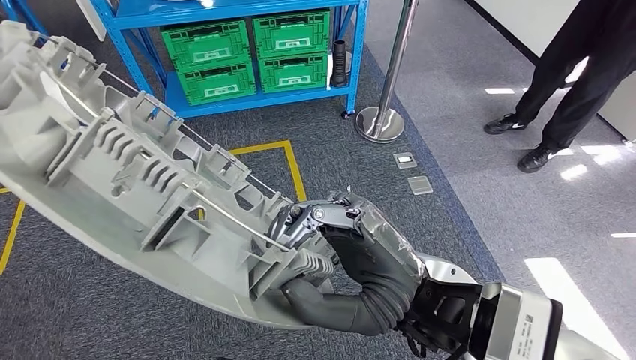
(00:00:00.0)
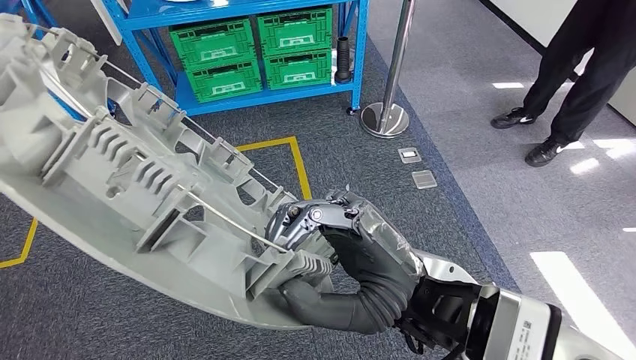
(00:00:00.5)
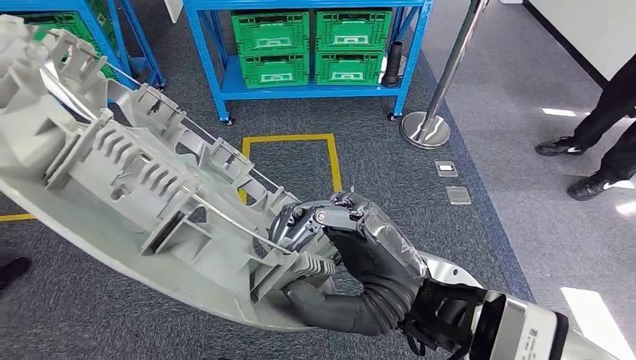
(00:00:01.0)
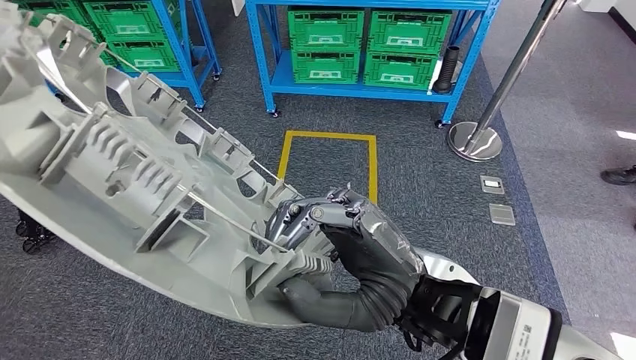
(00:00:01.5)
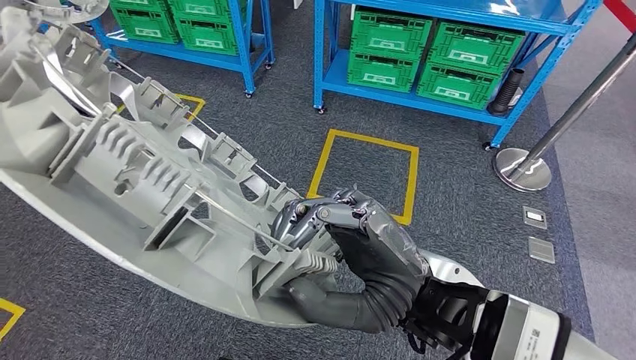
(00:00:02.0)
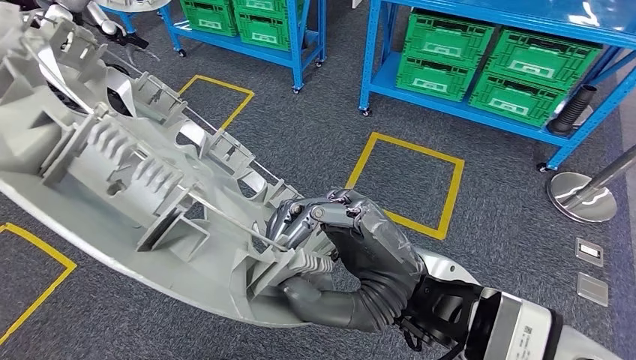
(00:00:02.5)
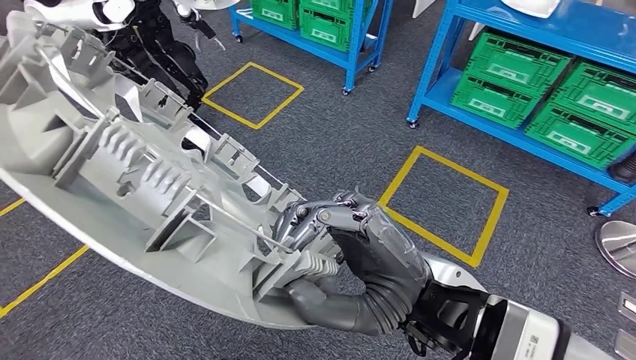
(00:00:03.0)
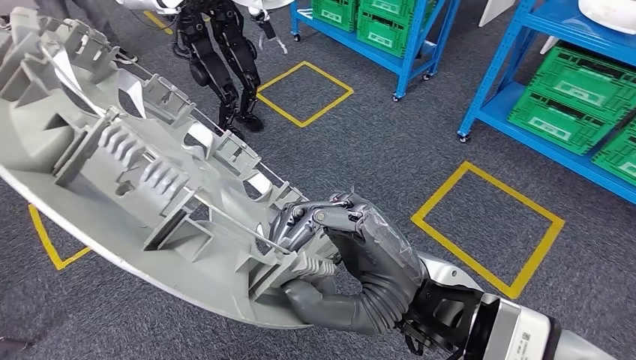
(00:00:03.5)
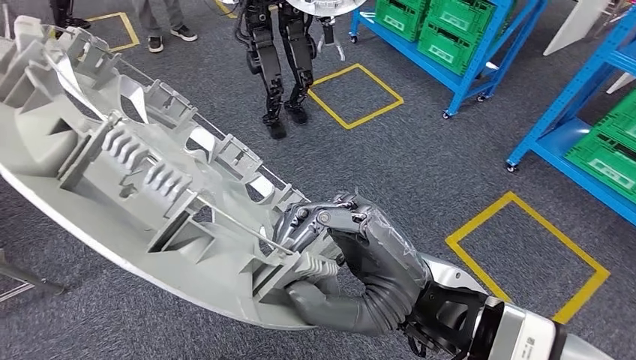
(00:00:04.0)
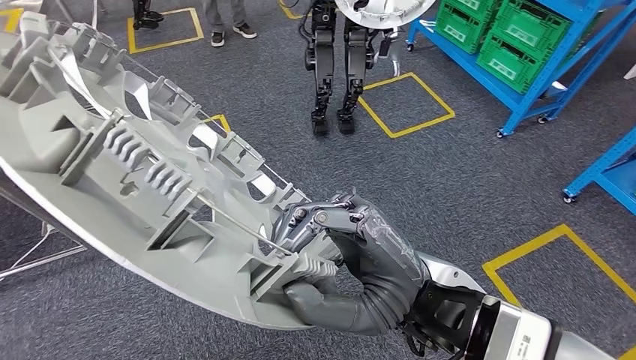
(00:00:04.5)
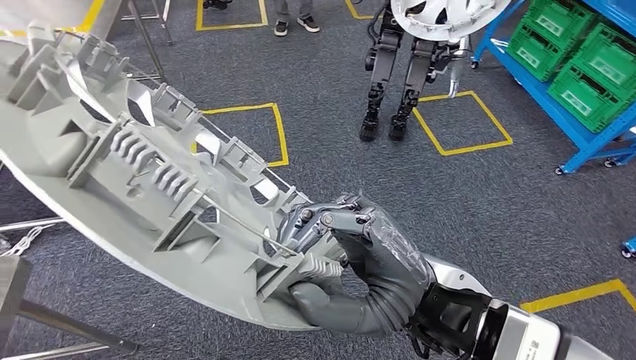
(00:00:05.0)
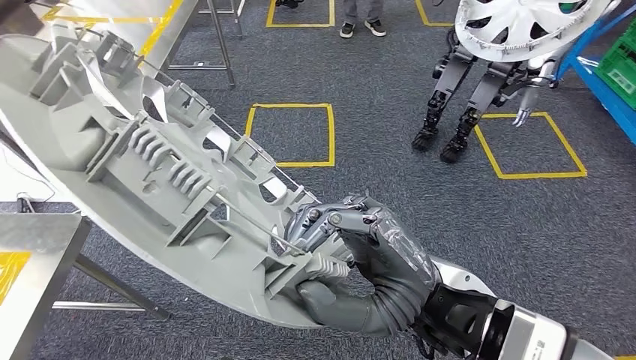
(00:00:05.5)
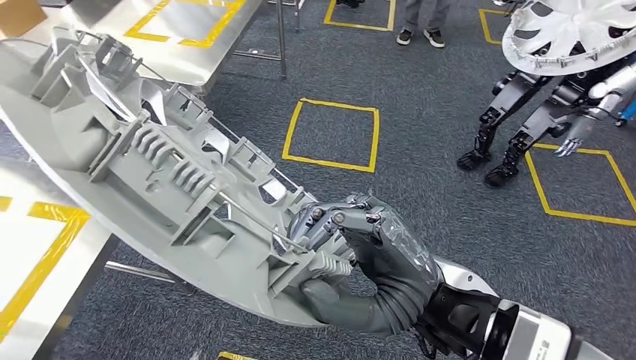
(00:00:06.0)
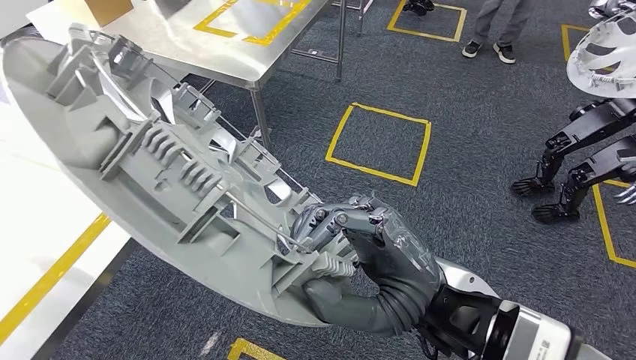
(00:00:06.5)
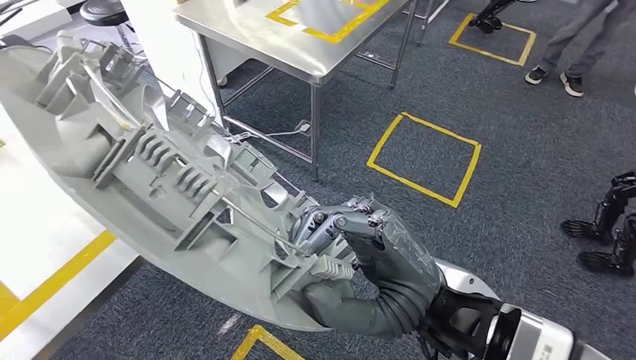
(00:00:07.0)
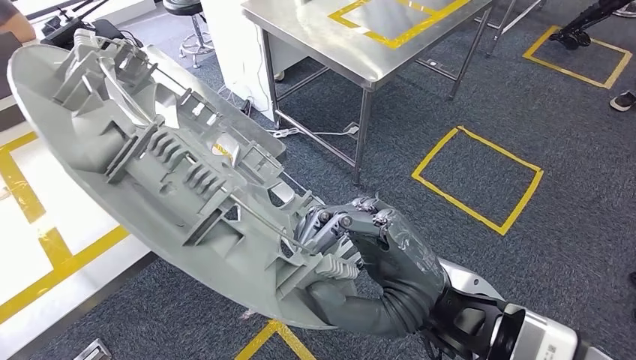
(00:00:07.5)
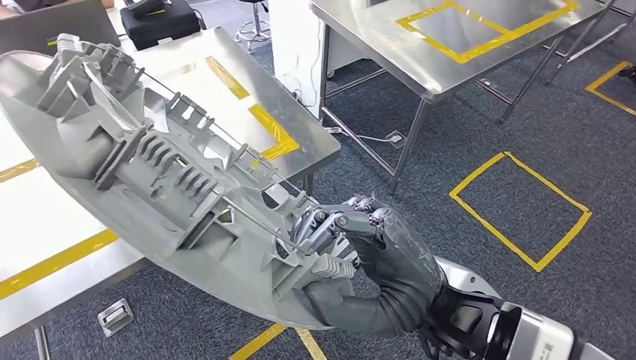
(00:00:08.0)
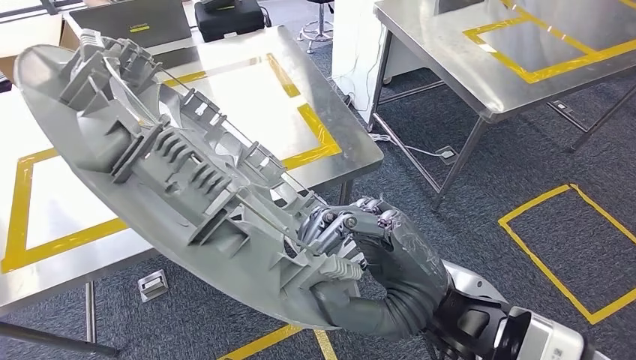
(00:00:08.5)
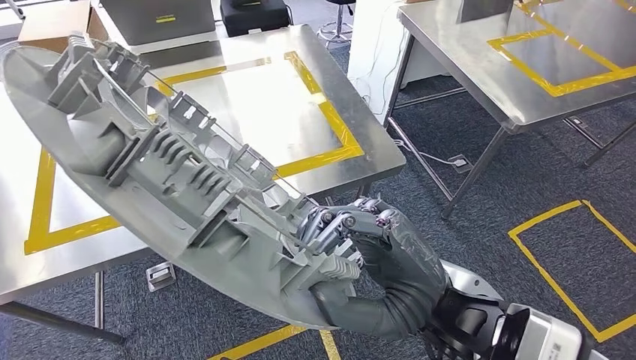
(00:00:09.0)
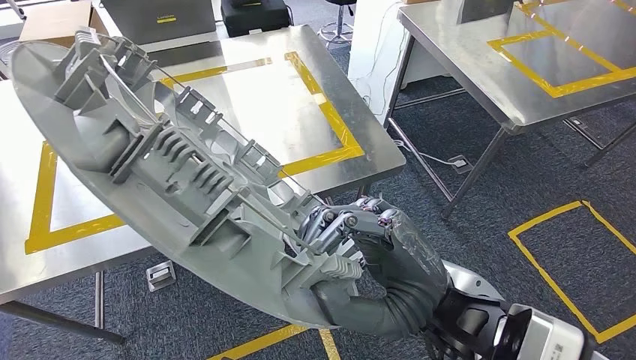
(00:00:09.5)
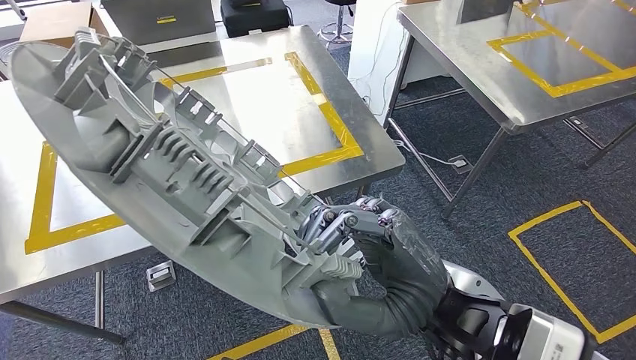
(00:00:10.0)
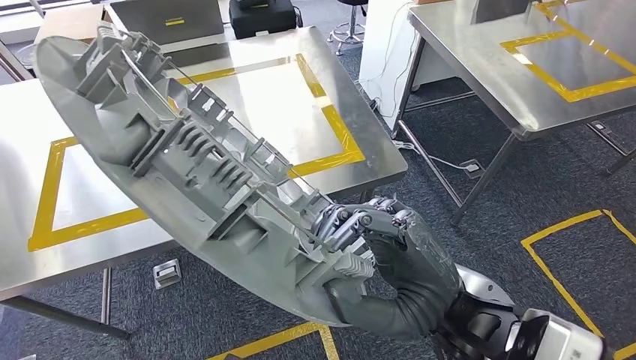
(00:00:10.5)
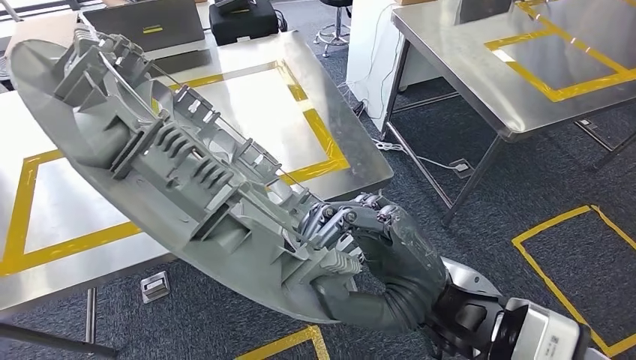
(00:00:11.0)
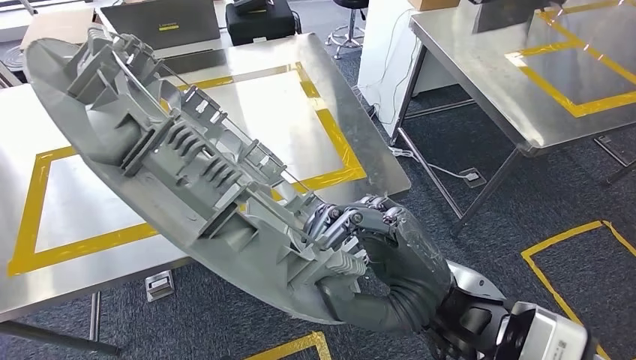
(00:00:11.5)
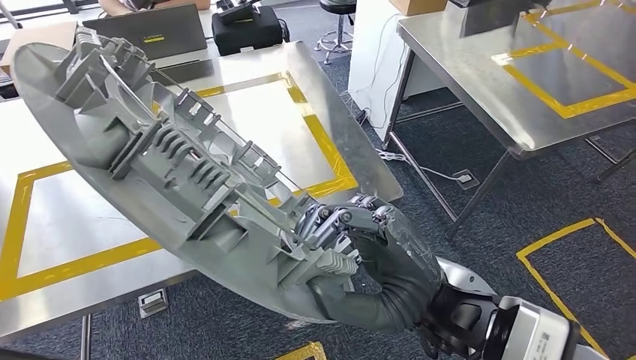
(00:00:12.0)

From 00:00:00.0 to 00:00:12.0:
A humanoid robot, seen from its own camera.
Step, from 00:00:00.0 to 00:00:10.0: Move the large material to the workbench.

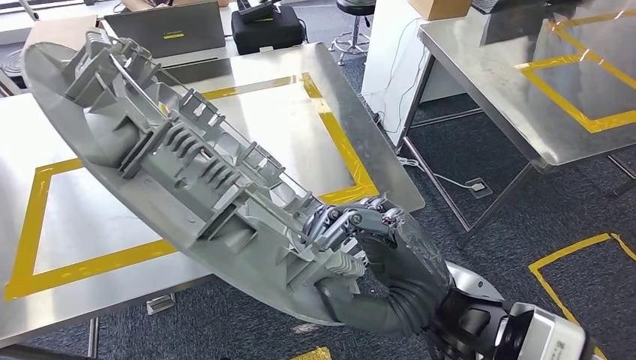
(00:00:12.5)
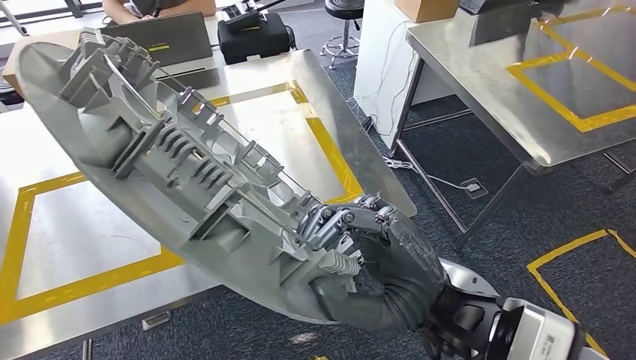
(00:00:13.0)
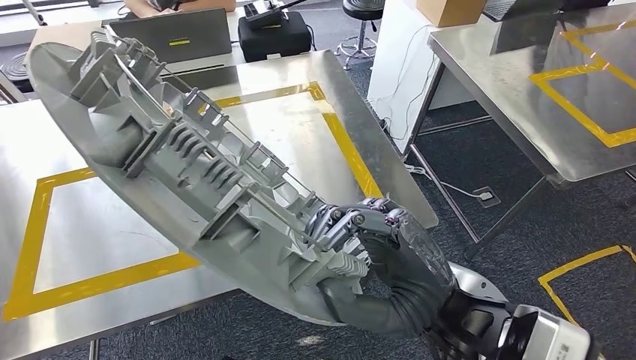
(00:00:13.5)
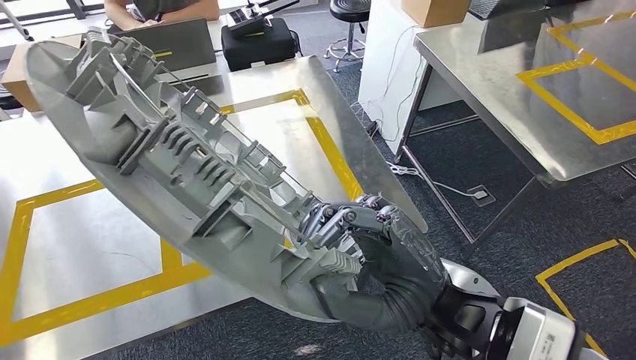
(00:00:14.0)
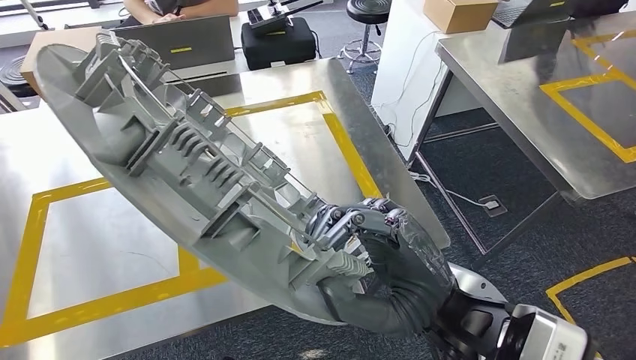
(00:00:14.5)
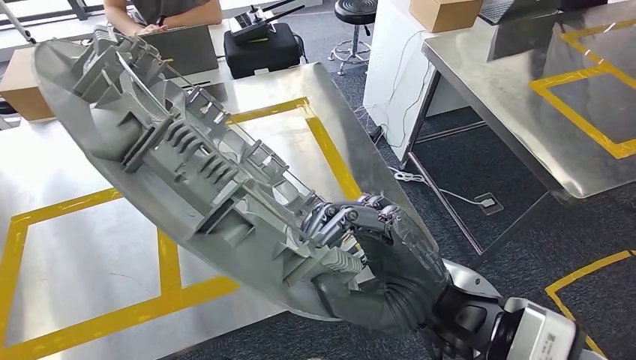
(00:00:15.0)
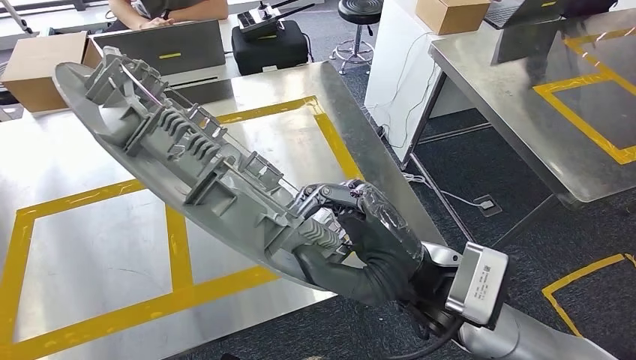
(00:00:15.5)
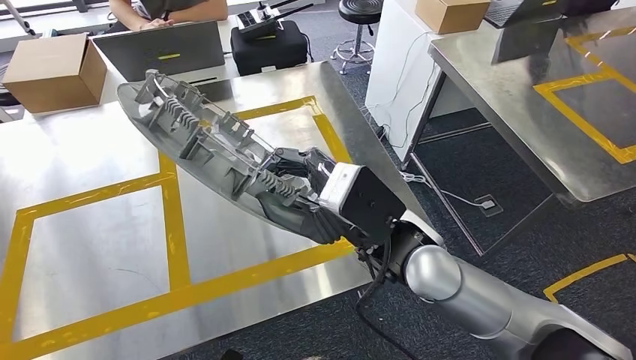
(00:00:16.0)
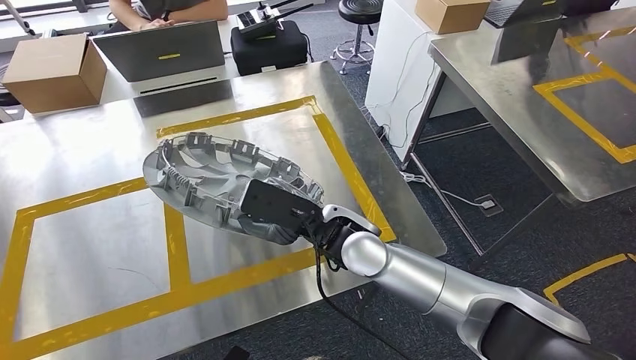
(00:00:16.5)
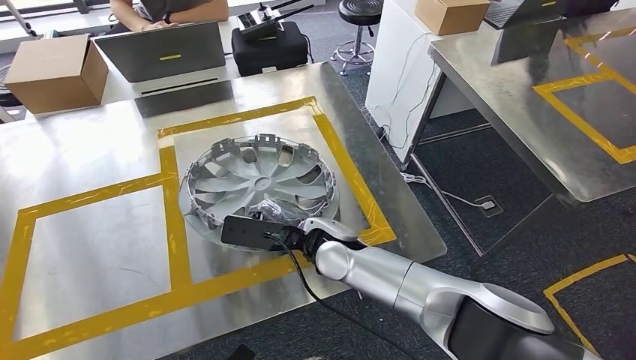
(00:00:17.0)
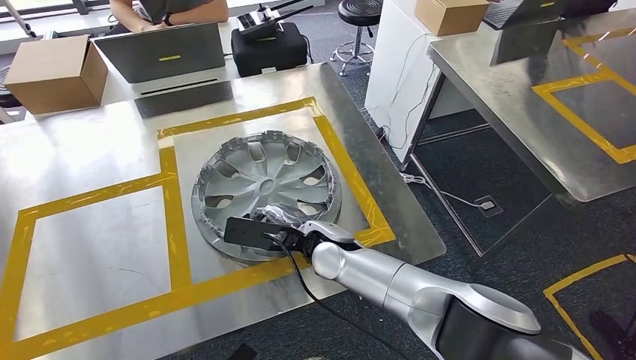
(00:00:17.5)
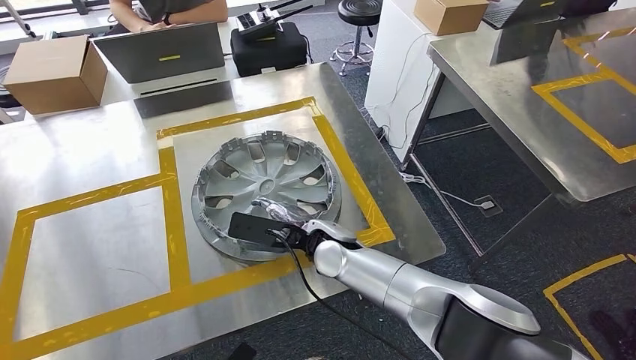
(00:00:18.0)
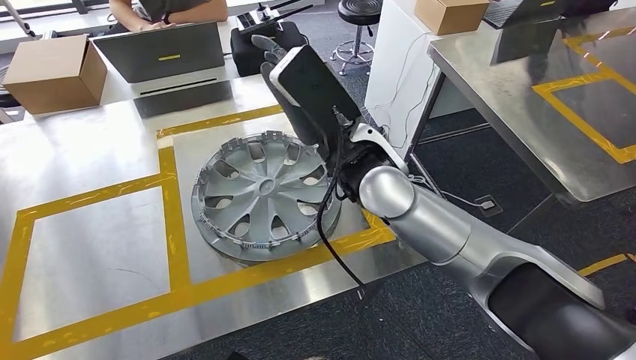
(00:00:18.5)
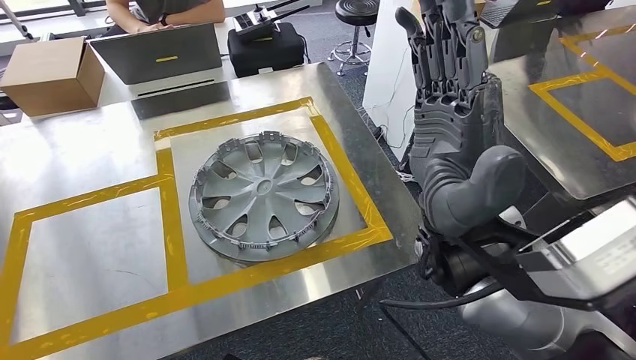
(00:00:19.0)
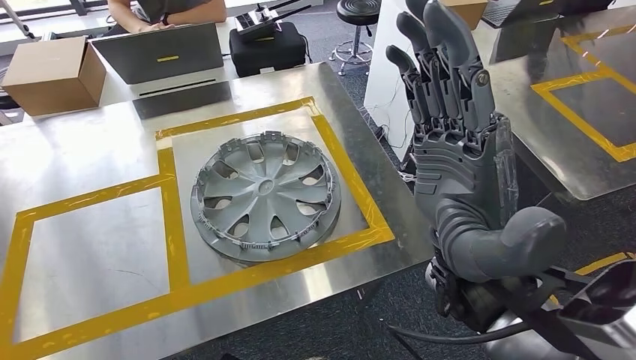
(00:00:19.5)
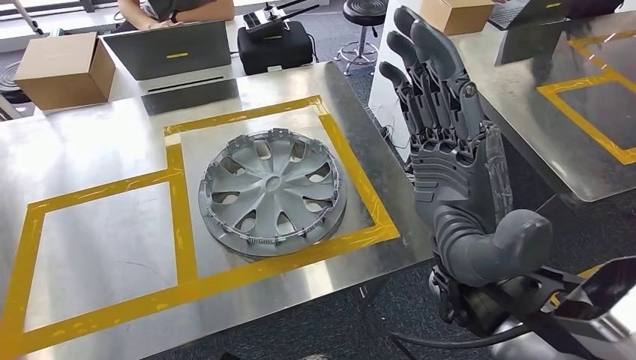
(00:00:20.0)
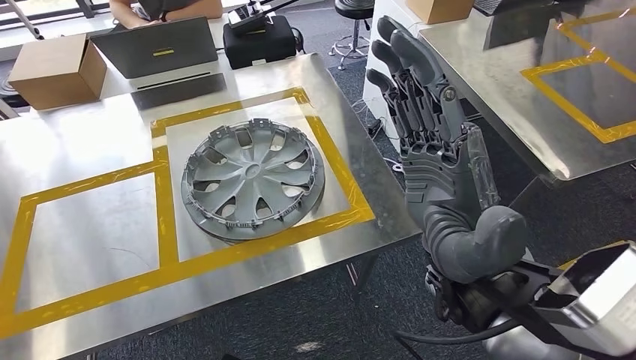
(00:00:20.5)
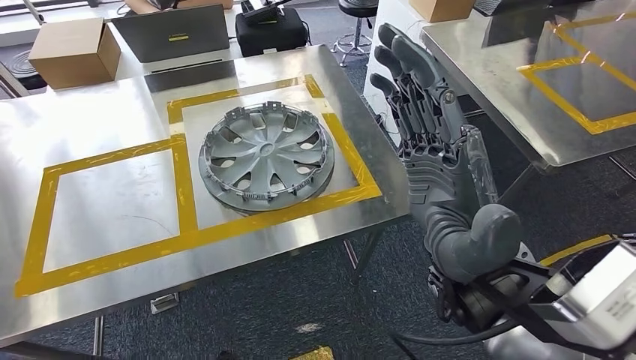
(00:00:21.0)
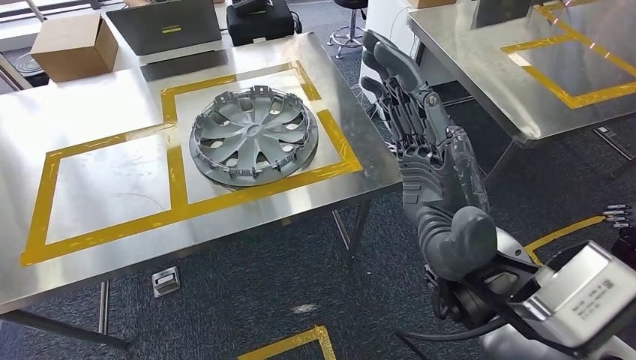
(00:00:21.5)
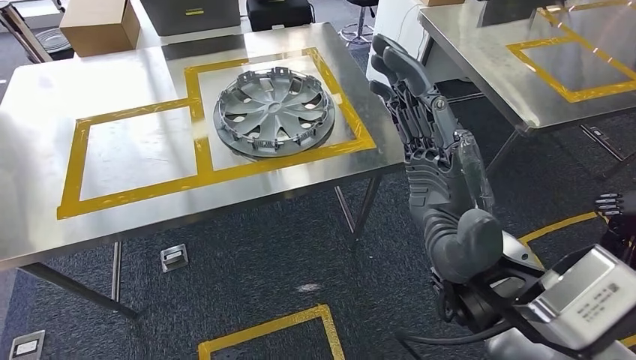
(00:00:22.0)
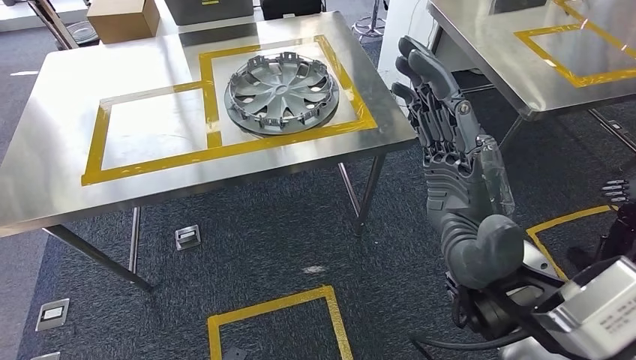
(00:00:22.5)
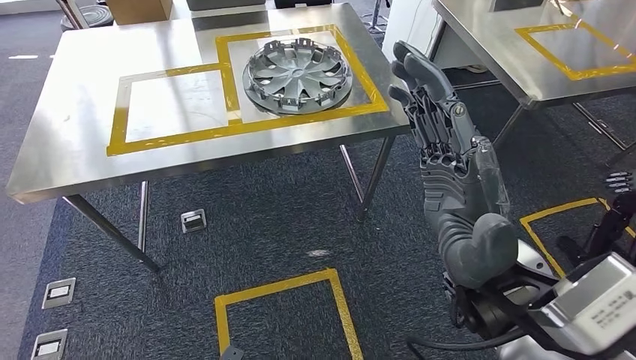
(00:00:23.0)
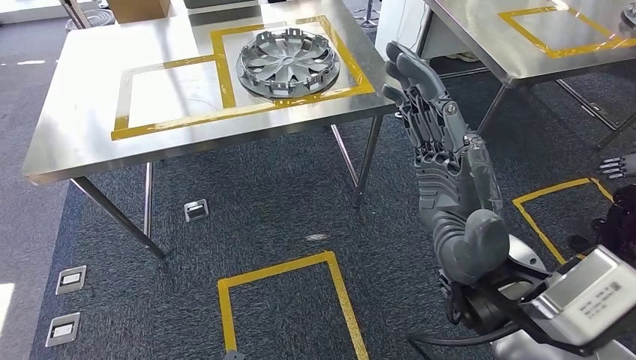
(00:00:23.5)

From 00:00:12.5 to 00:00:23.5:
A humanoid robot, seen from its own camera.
Step, from 00:00:12.5 to 00:00:19.5: Insert the large material into the corresponding slot on the workbench.
Step, from 00:00:20.0 to 00:00:23.5: Move to the initial position of the shelf.
